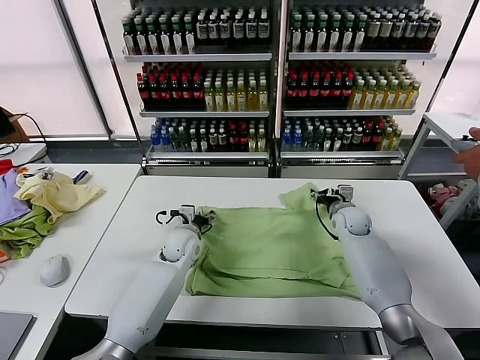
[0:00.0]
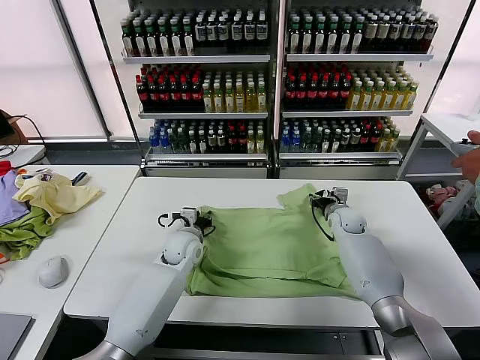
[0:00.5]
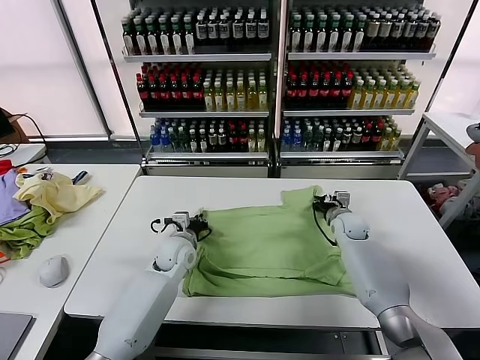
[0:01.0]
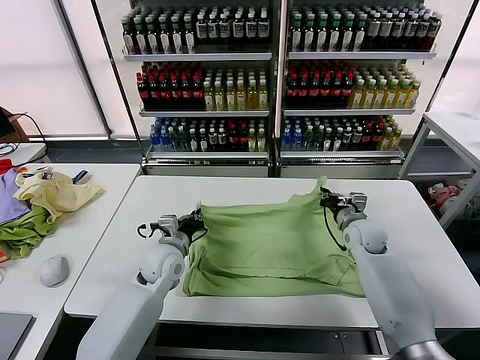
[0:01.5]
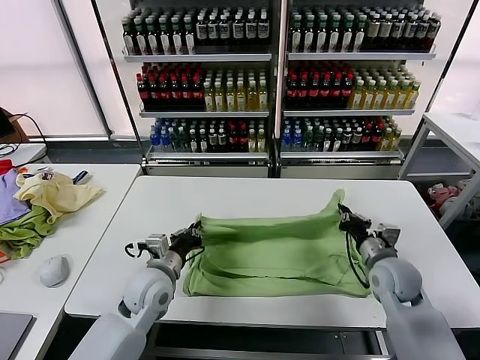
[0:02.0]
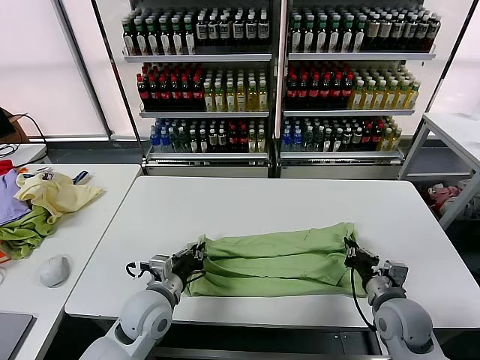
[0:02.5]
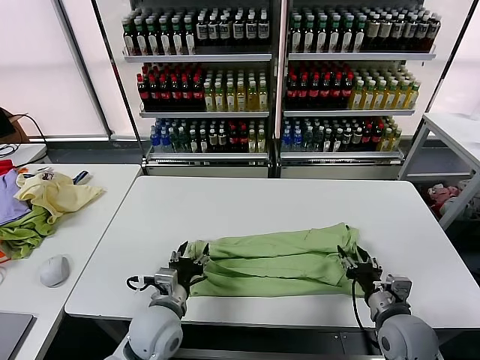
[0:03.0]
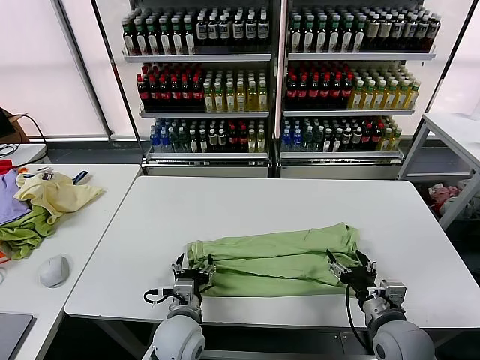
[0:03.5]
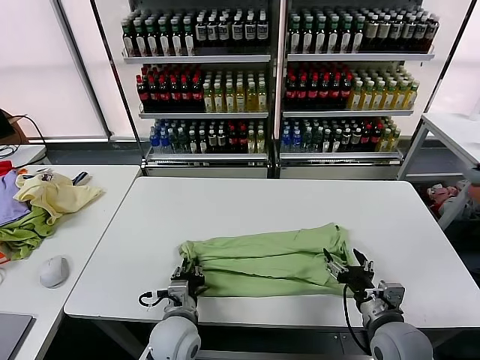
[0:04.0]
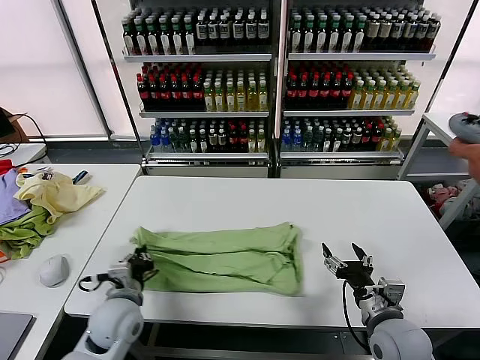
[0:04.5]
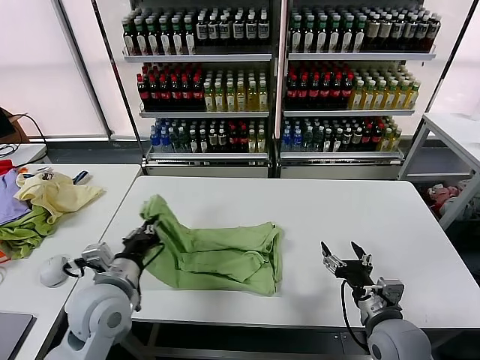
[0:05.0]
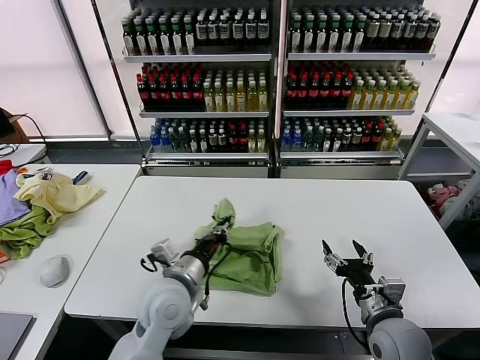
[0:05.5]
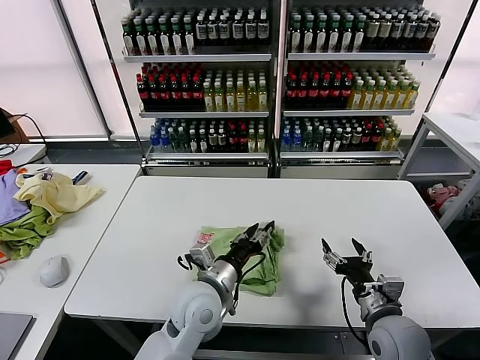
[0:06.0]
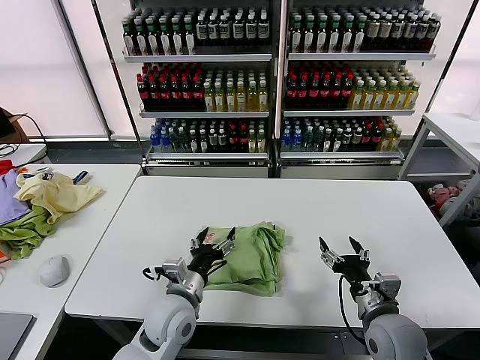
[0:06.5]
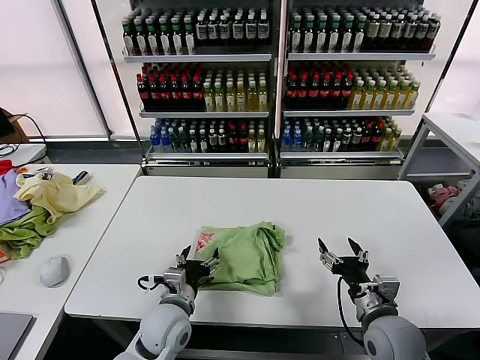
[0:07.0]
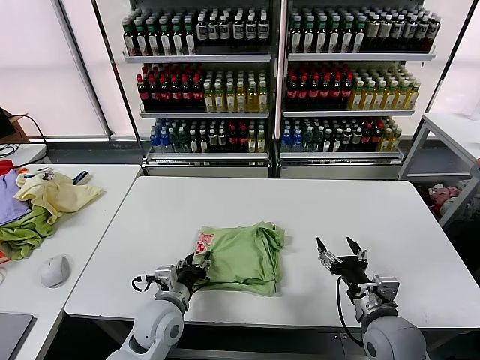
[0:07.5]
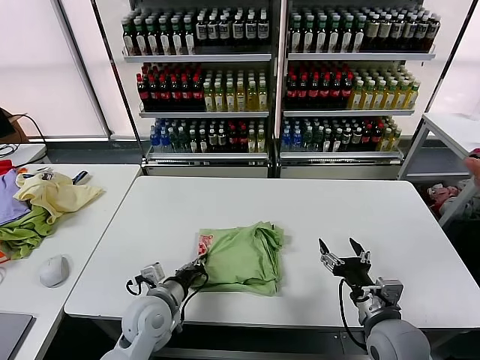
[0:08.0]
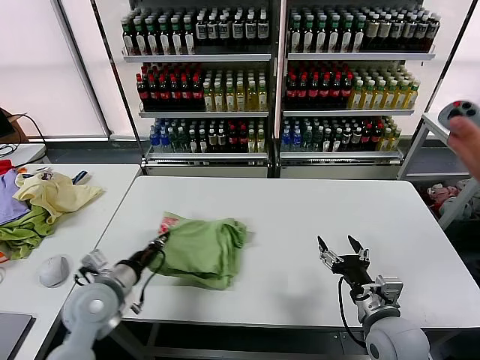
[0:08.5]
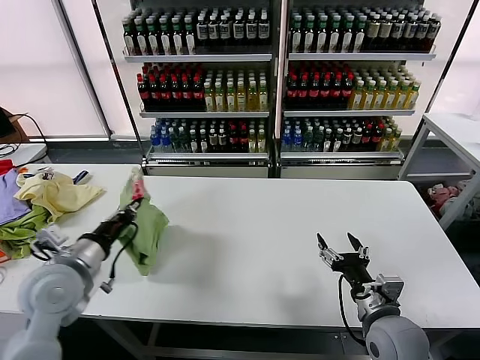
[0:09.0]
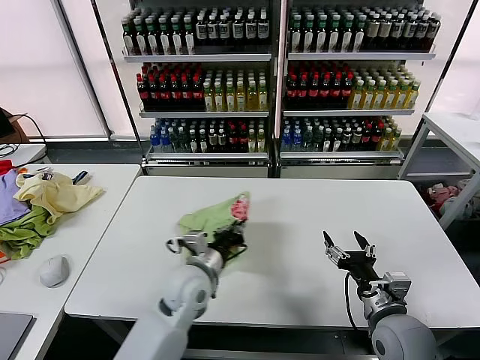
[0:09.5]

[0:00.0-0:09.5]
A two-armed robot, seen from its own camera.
Task of the whole recording: fold and organize the clothes.
Step, 0:01.0 to 0:03.0: use both grippers to drag the upper edge of the fabric backward and fold it over the lower edge.
Step, 0:03.5 to 0:04.0: use the left gripper to clamp the left edge of the fabric.
Step, 0:04.5 to 0:05.5: use the left gripper to drag the left edge of the fabric to the left and folds it over the right edge.
0:00.0 to 0:02.0: Both grippers move backward, about 15 cm. The left gripper closes. The right gripper closes its fingers.
0:02.0 to 0:04.0: The right gripper moves backward, approximately 10 cm, and opens its fingers. The left gripper heads backward, downward and to the right, covering roughly 10 cm, and opens, then closes once more.
0:04.0 to 0:05.5: The left gripper heads upward, covering roughly 10 cm.
0:05.5 to 0:07.5: The left gripper travels downward by approximately 10 cm, and opens.
0:07.5 to 0:09.5: The left gripper travels upward by roughly 5 cm, reaches some 15 cm to the left, then returns, and closes.

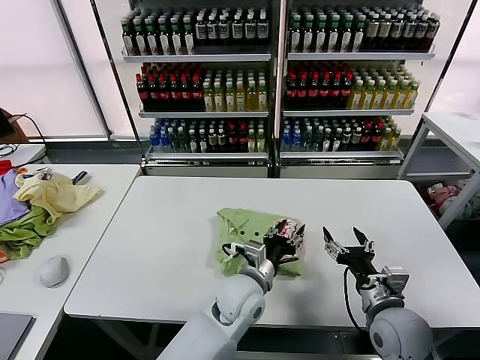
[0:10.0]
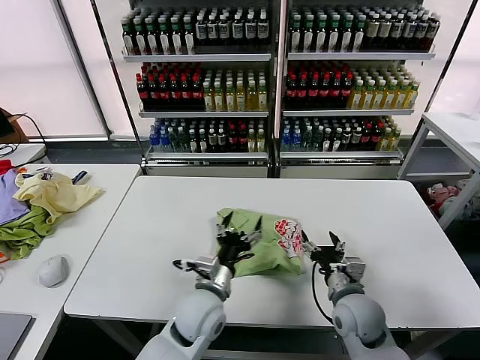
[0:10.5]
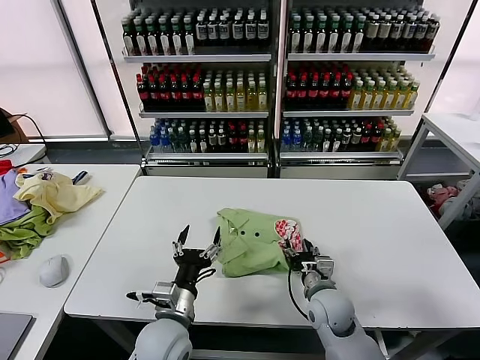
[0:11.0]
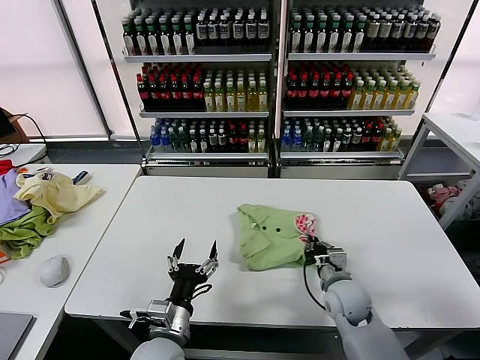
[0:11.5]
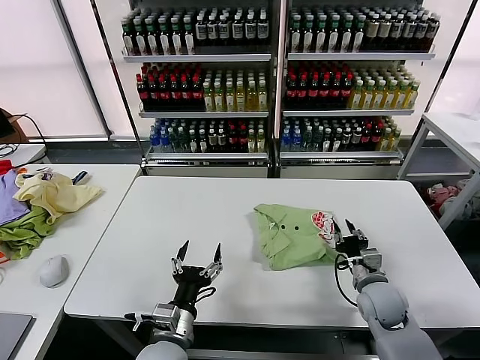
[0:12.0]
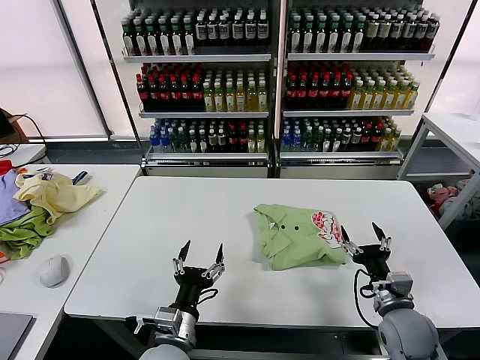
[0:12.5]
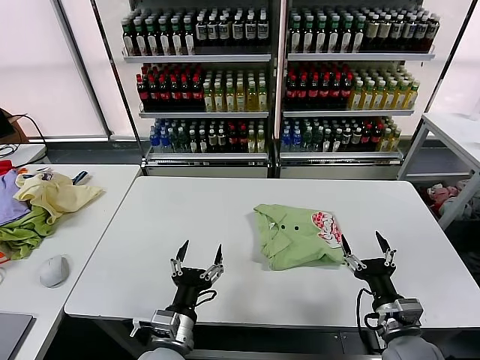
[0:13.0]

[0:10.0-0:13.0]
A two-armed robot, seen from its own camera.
Task of the whole recording: fold and organize the clothes.
Step, 0:10.5 to 0:12.0: Drag the clothes to the center of the table.
0:10.0 to 0:11.5: The left gripper travels to the left and backward by roughly 20 cm, and opens up, while the right gripper shifts approximately 15 cm forward, downward and to the left, and closes.
0:11.5 to 0:13.0: The right gripper shifts approximately 15 cm backward and to the right, and opens its fingers.
